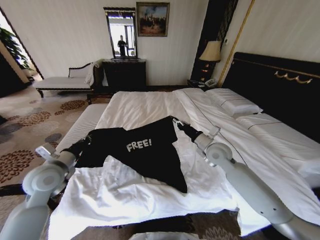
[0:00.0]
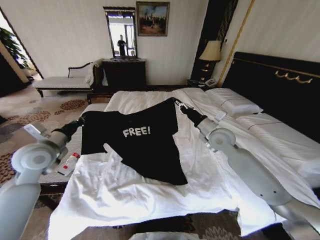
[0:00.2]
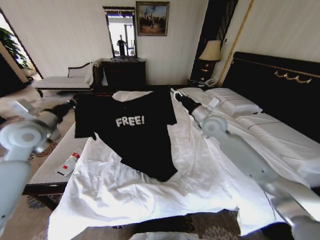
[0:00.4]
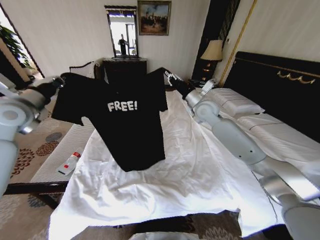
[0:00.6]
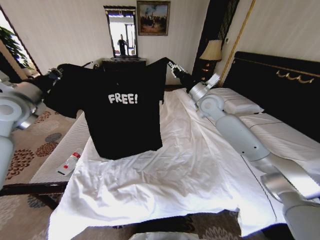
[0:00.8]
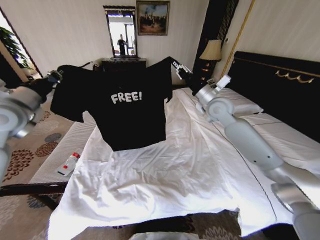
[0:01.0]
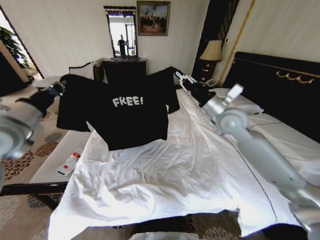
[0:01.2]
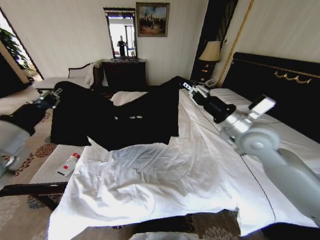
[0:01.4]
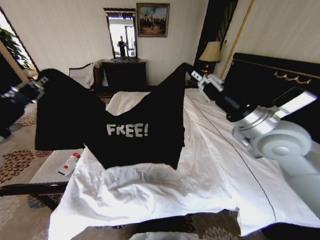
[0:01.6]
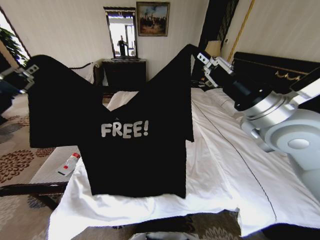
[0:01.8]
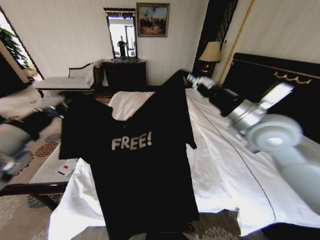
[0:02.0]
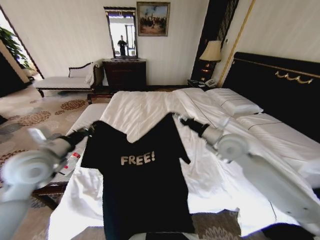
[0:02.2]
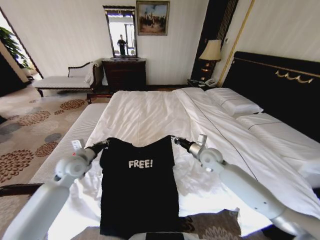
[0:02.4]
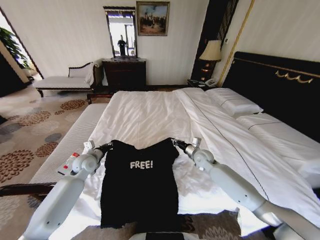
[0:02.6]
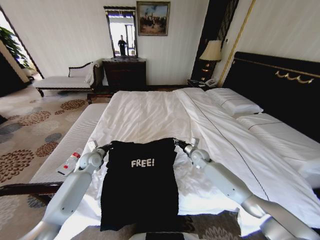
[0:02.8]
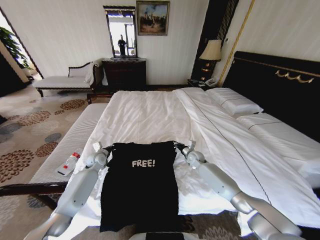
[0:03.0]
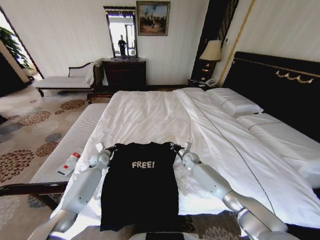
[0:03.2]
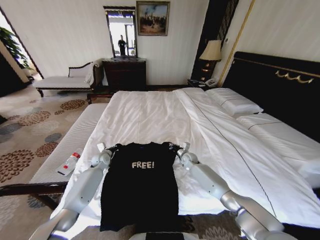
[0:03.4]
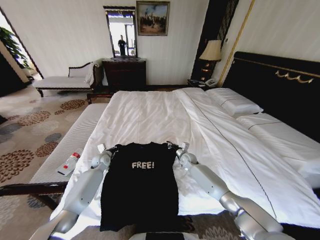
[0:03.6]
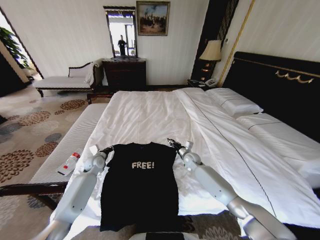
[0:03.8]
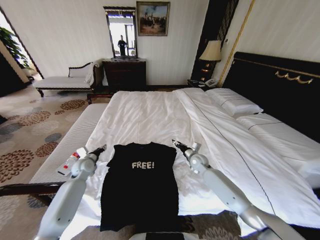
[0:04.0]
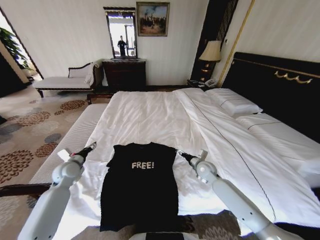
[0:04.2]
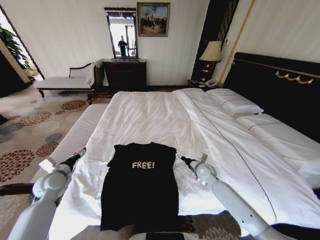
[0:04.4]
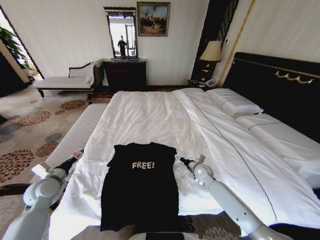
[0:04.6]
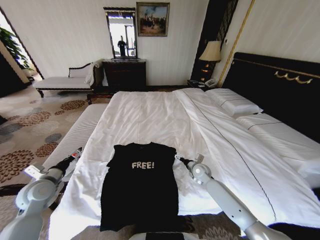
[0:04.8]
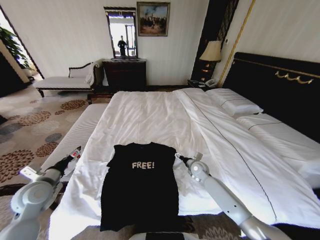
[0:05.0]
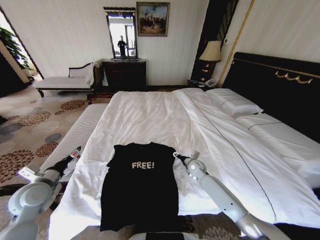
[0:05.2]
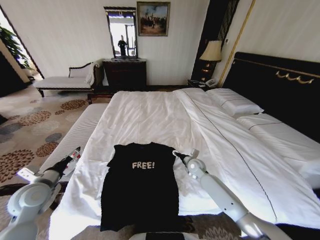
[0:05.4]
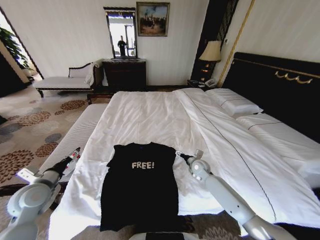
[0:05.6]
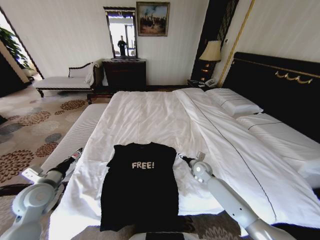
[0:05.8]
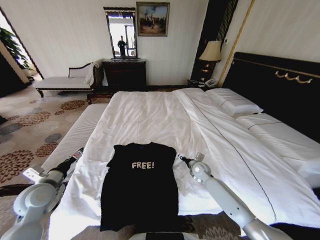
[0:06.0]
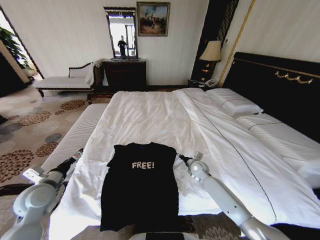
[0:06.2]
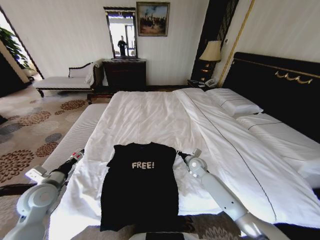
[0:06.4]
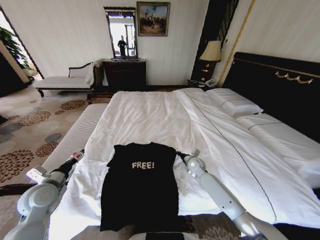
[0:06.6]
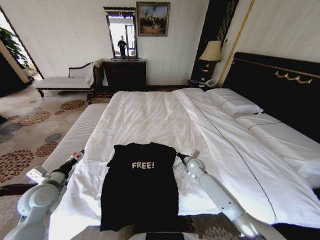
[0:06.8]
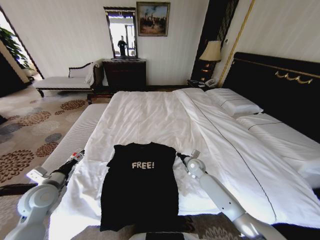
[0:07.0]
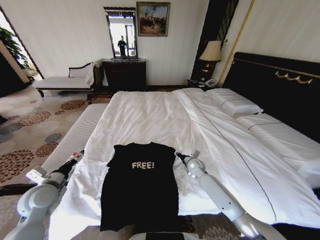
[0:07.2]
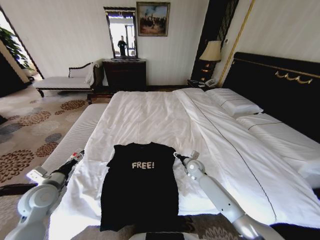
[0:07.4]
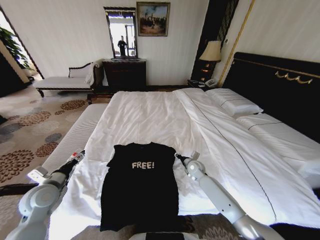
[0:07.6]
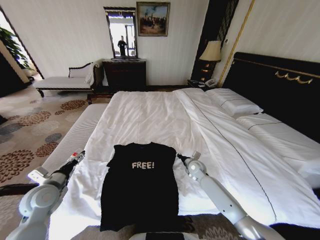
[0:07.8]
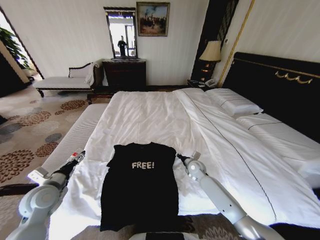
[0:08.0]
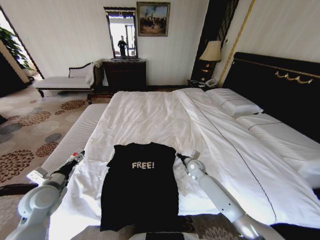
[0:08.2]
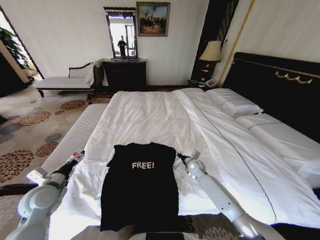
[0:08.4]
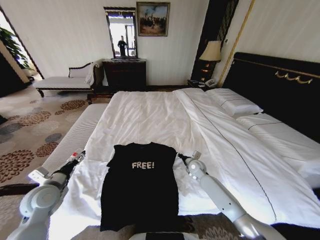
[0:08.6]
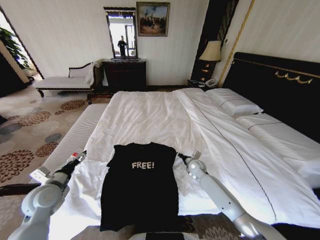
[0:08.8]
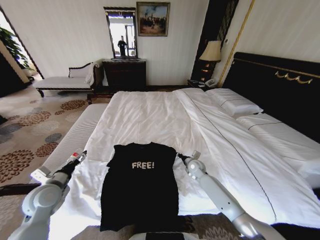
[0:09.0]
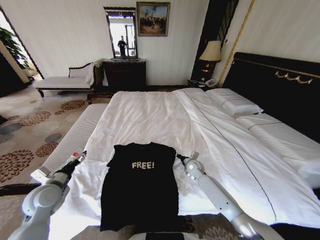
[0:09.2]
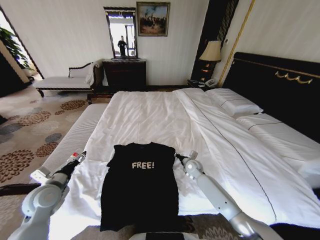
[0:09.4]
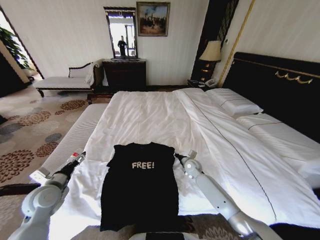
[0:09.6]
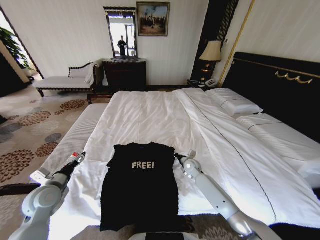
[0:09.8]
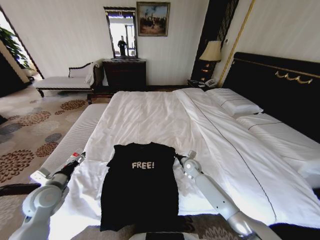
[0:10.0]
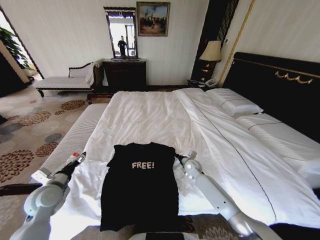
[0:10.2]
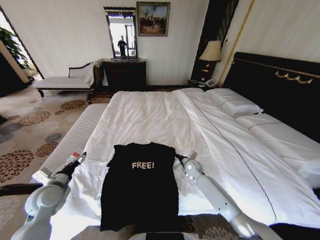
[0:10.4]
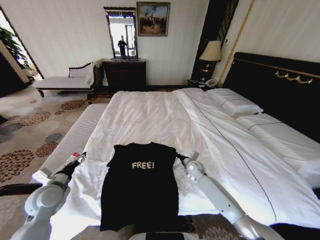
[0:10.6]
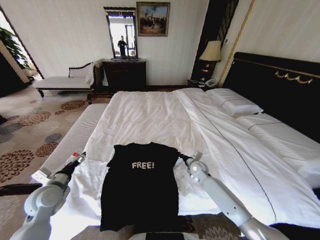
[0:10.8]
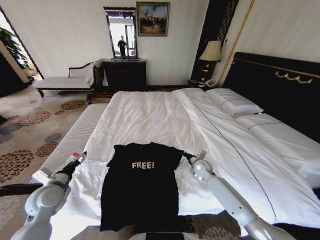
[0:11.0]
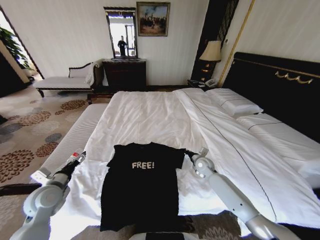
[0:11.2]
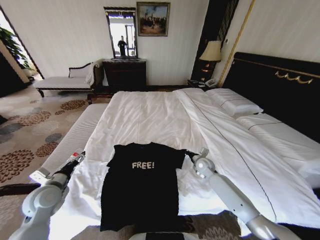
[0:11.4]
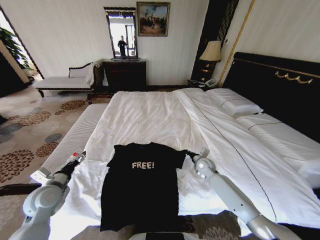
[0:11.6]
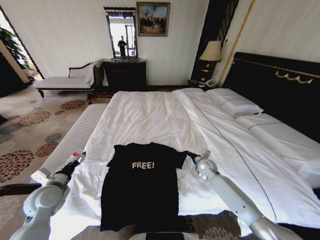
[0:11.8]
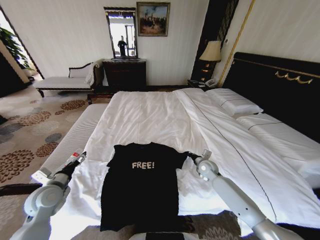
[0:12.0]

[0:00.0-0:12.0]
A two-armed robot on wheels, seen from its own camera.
Task of the whole recording: Fold the clothes on the bed.
0:00.0 to 0:01.6: Both grippers travel together upward and backward, approximately 20 cm.
0:01.6 to 0:03.0: The two grippers go roughly 40 cm downward and forward.
0:03.0 to 0:04.4: The right gripper heads backward, covering about 10 cm, and opens its fingers; the left gripper travels backward, to the left and upward by about 20 cm, and opens up.
0:04.4 to 0:06.0: The left gripper shifts approximately 5 cm backward.
0:06.0 to 0:07.6: The right gripper closes and opens again.
0:07.6 to 0:09.0: The two grippers keep their place.
0:09.0 to 0:10.4: The right gripper closes its fingers.
0:10.4 to 0:12.0: The right gripper goes about 5 cm to the right.

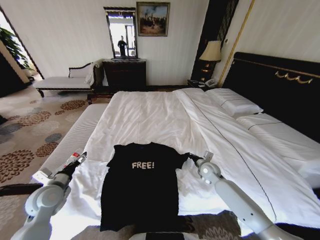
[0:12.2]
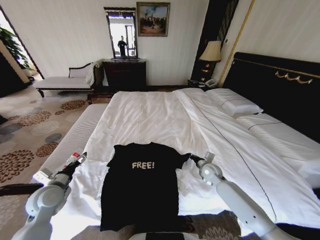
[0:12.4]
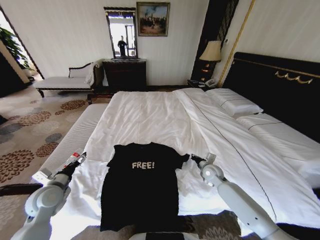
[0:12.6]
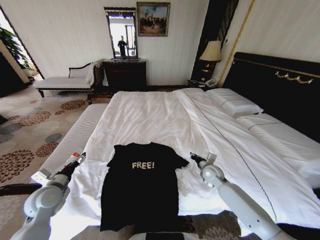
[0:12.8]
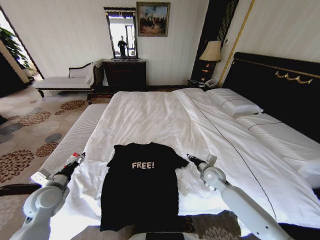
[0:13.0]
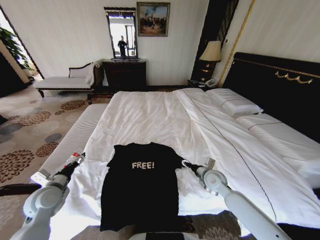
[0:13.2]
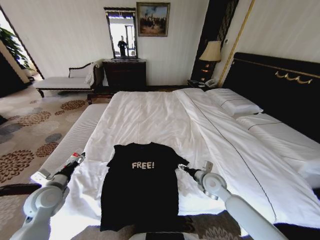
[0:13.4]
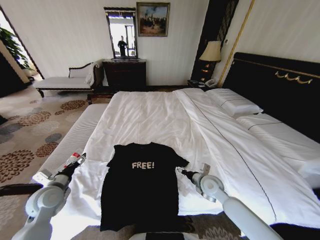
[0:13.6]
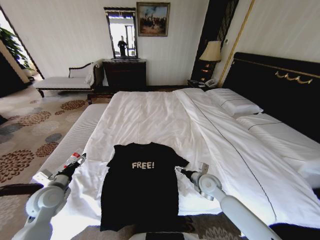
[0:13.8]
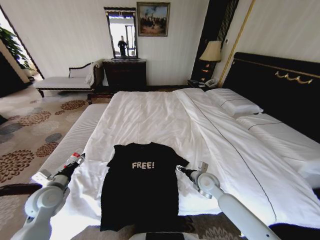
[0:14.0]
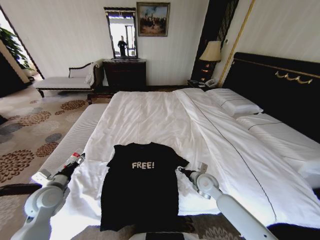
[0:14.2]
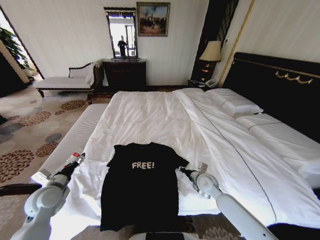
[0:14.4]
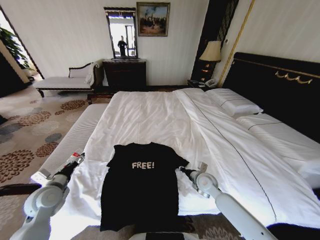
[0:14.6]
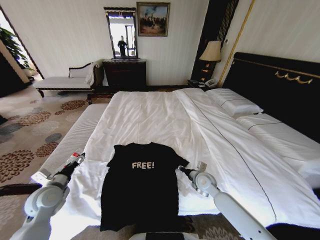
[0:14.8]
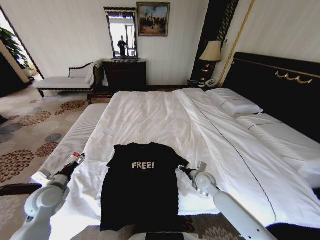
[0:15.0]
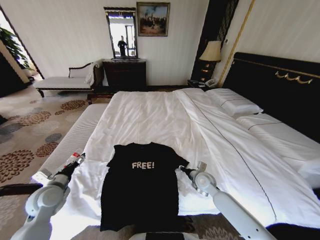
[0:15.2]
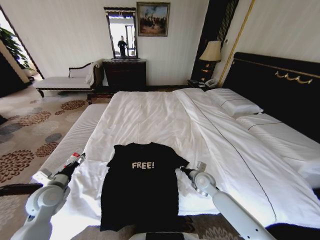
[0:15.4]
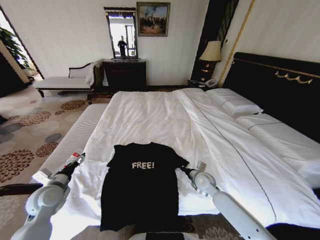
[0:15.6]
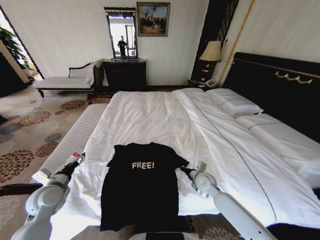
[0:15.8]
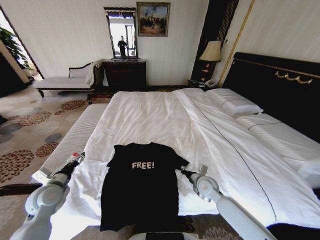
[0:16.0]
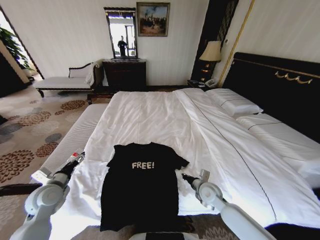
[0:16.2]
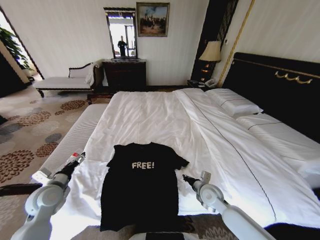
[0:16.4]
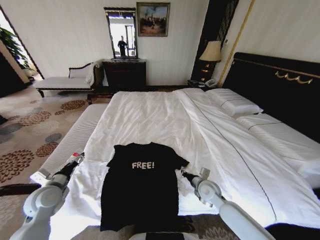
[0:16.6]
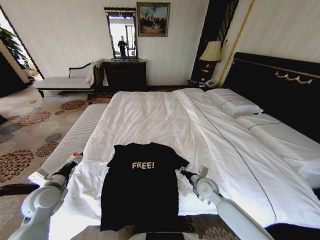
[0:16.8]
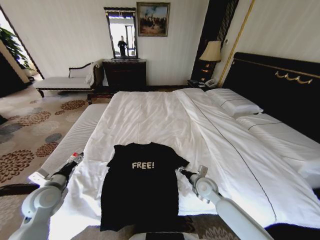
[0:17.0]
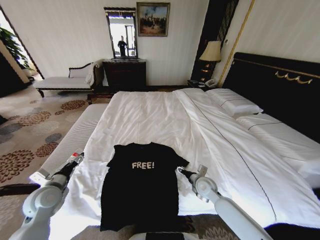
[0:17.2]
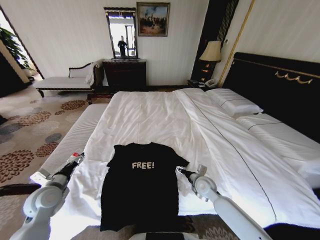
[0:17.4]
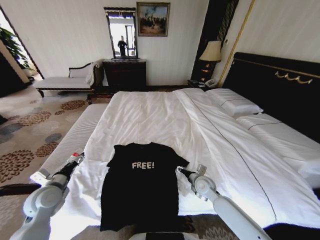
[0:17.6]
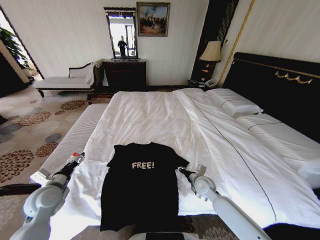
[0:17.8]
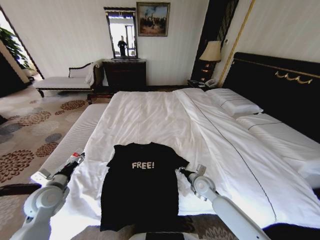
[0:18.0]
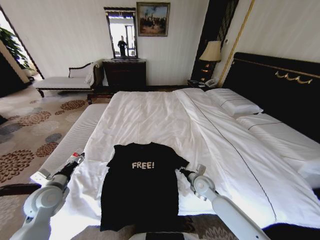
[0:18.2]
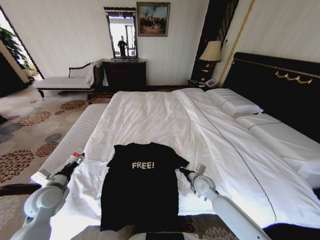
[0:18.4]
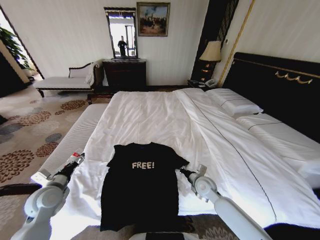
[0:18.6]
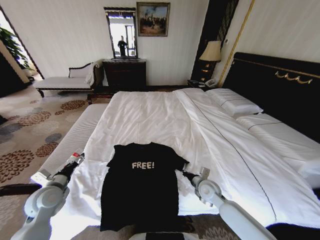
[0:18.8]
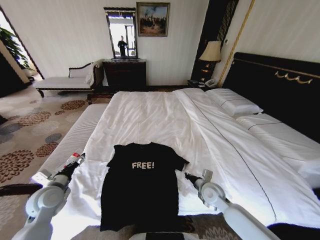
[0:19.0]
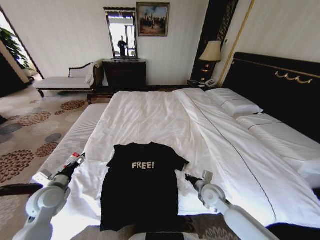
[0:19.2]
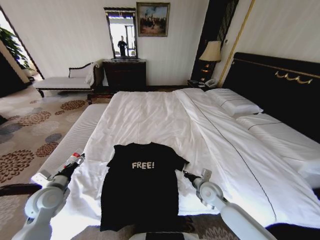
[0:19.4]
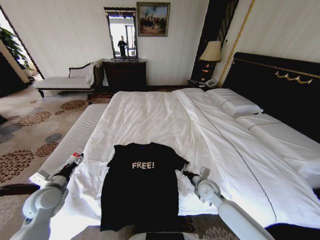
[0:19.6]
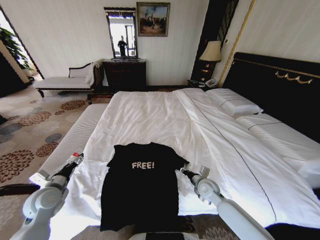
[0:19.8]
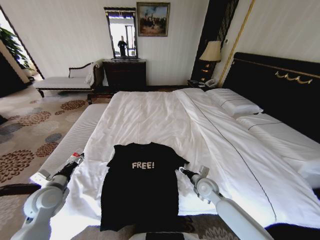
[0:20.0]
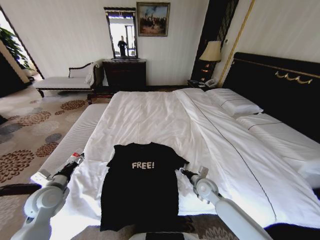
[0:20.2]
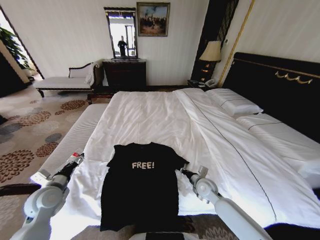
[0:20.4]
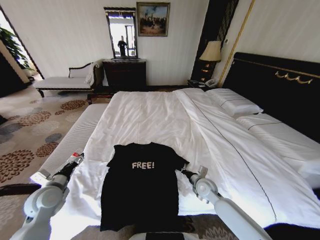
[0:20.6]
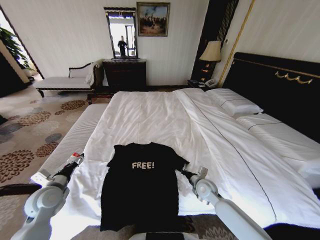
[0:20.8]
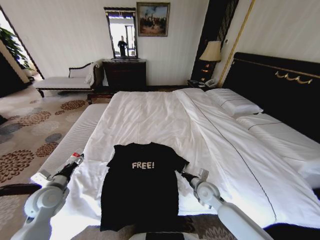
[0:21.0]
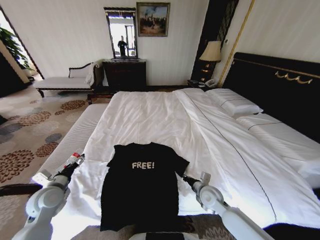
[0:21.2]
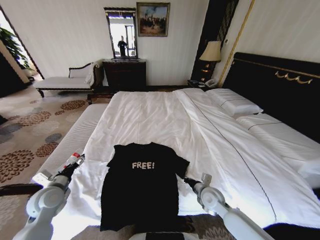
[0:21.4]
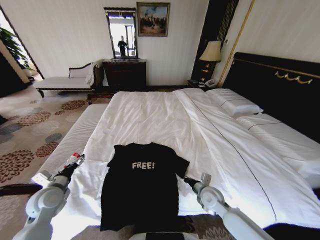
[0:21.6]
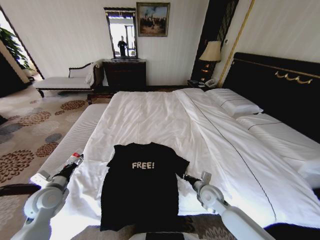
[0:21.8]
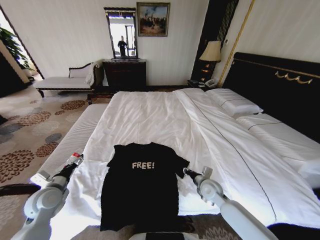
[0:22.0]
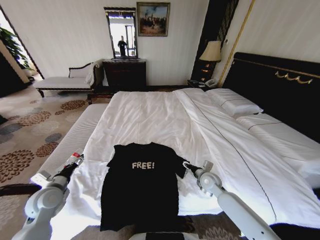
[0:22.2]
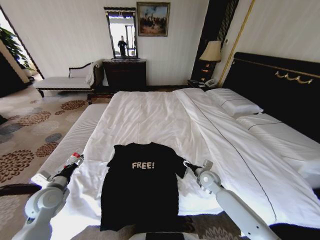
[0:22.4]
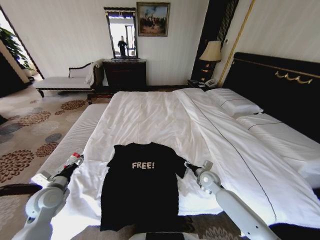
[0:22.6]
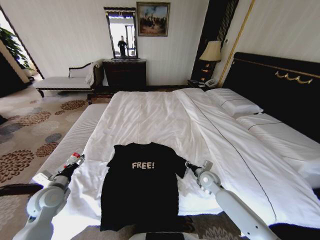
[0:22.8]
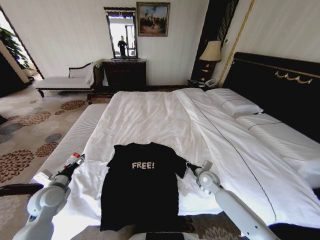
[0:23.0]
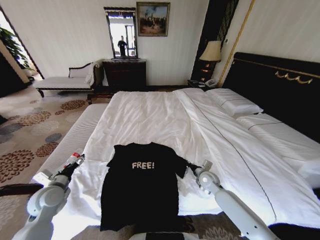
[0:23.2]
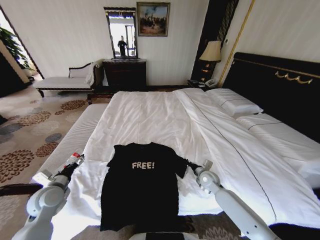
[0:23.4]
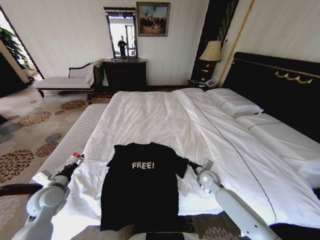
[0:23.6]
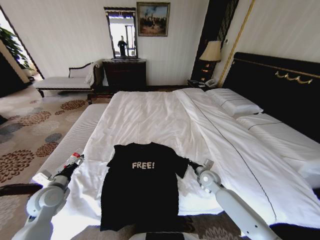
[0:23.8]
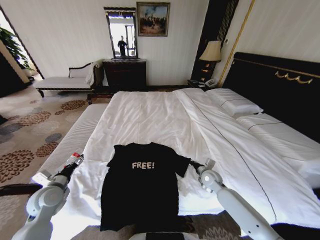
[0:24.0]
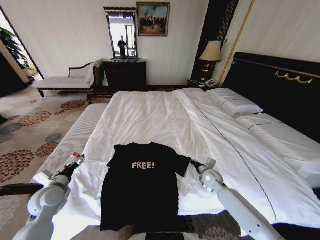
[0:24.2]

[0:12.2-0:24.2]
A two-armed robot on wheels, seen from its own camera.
Task of the whole recording: Fold the clothes on the bed.
0:12.2 to 0:13.8: The right gripper is displaced backward by some 10 cm, and opens.
0:13.8 to 0:15.2: The right gripper closes.
0:15.2 to 0:16.6: The right gripper closes its fingers.
0:16.6 to 0:18.2: The right gripper opens, then closes again.
0:18.2 to 0:19.8: The right gripper opens up.
0:19.8 to 0:21.2: The right gripper closes up.
0:21.2 to 0:22.6: The right gripper moves forward, some 10 cm, and opens.
0:22.6 to 0:24.2: The right gripper closes up.
